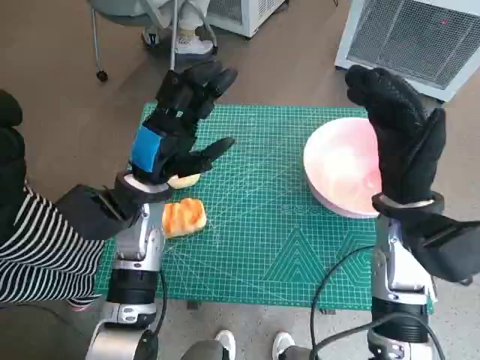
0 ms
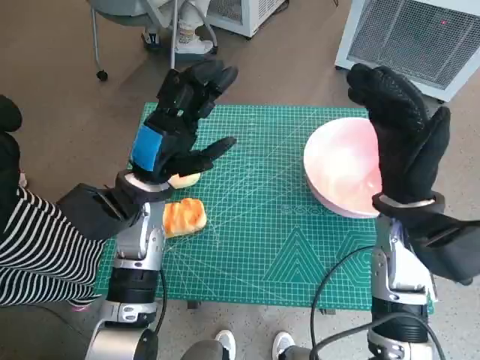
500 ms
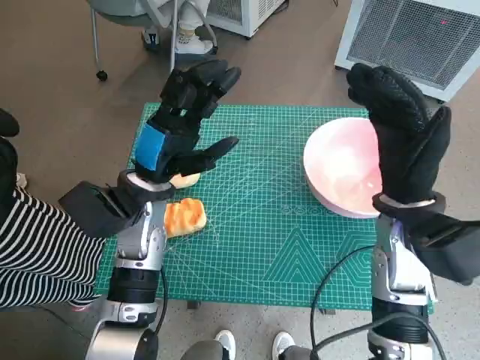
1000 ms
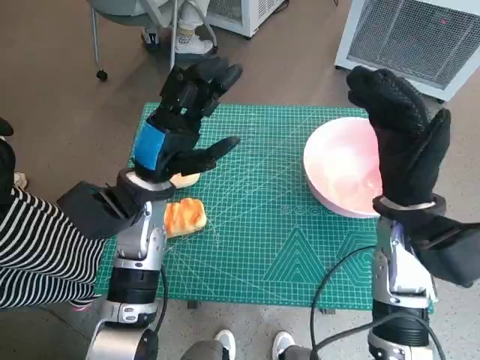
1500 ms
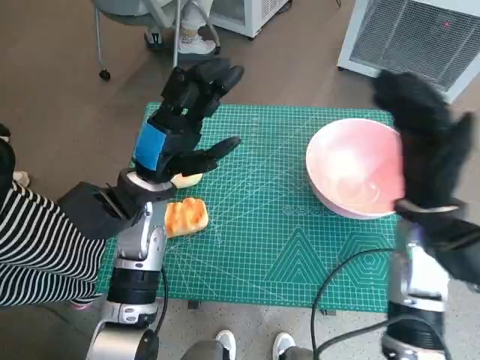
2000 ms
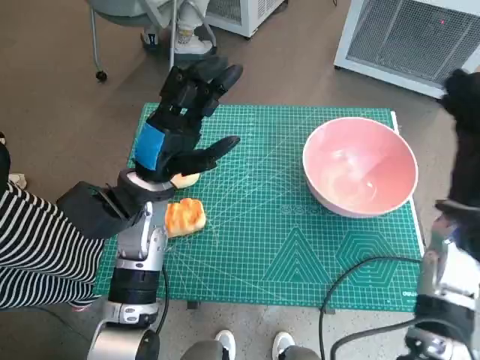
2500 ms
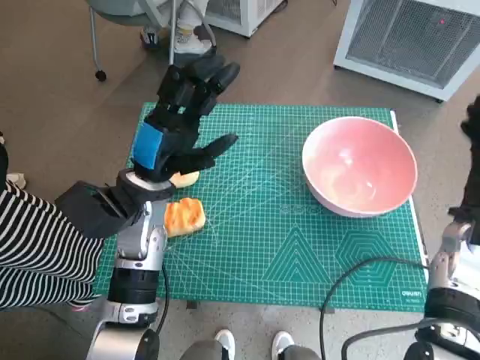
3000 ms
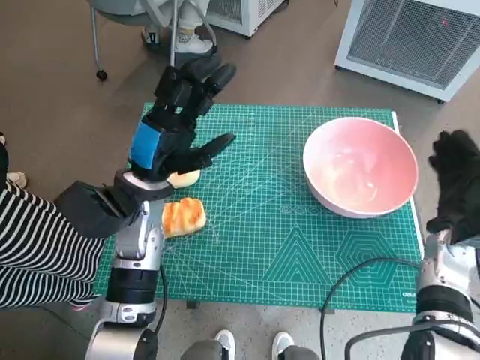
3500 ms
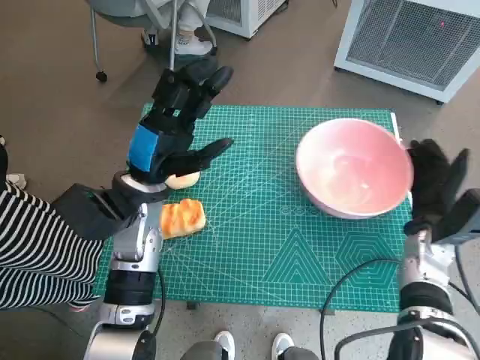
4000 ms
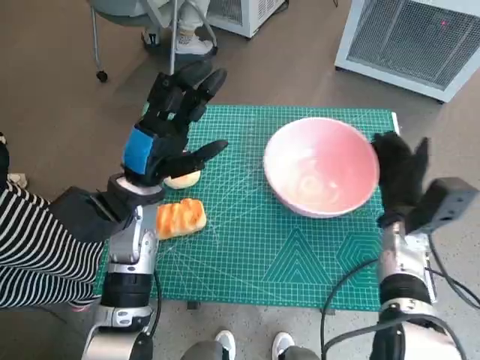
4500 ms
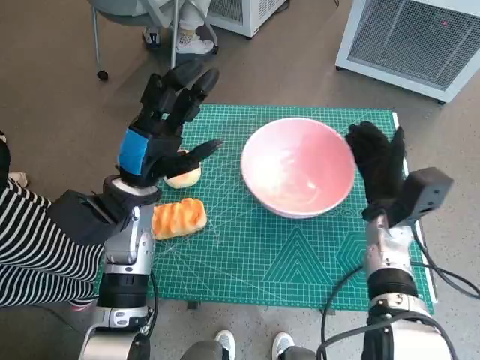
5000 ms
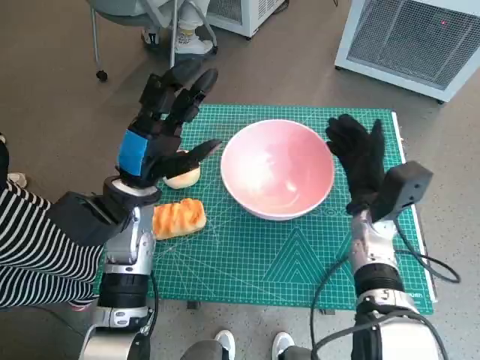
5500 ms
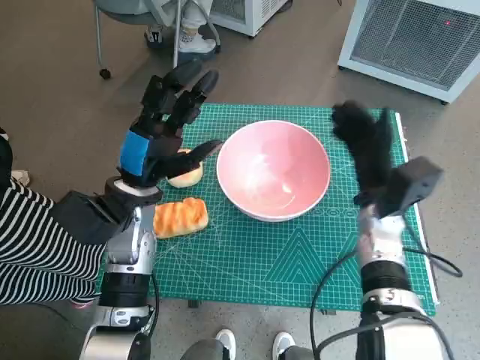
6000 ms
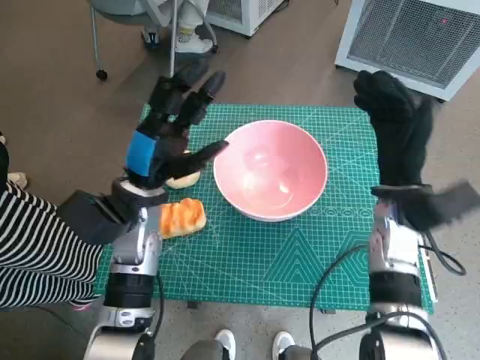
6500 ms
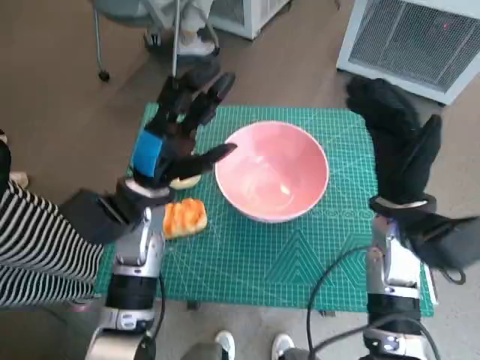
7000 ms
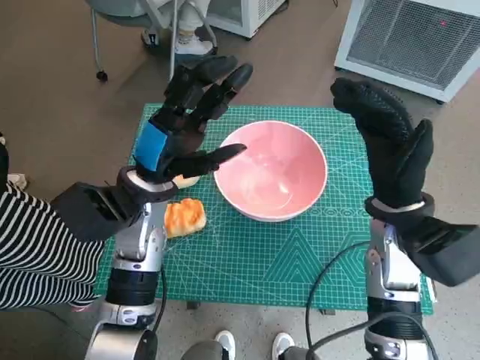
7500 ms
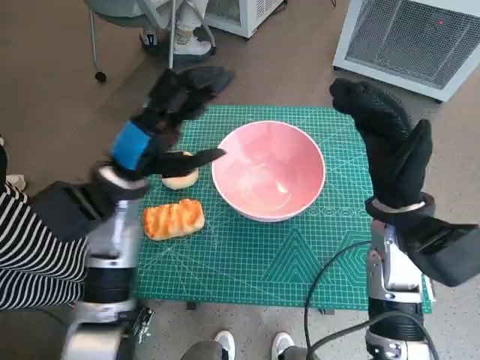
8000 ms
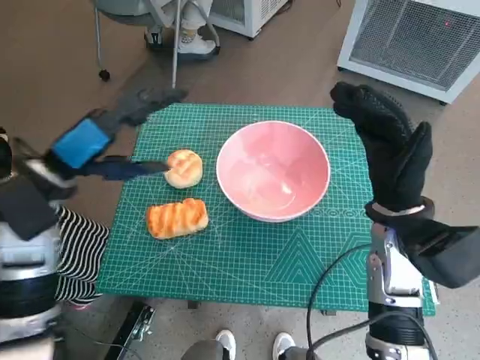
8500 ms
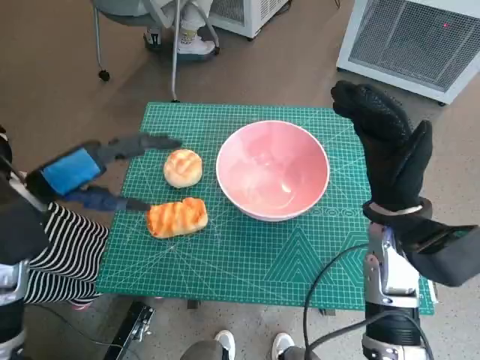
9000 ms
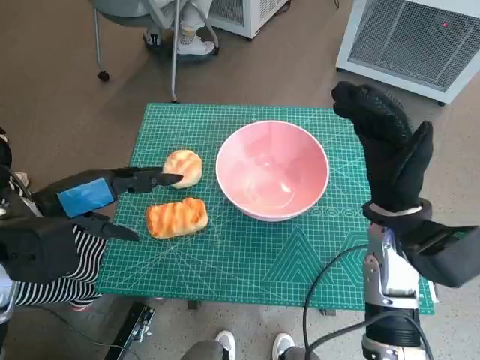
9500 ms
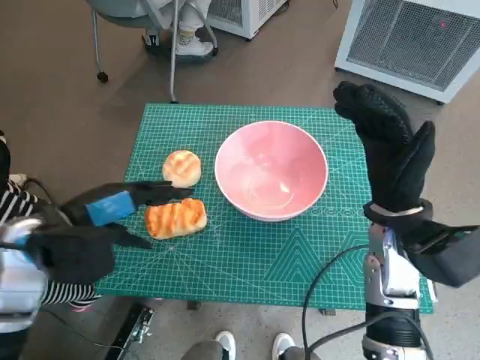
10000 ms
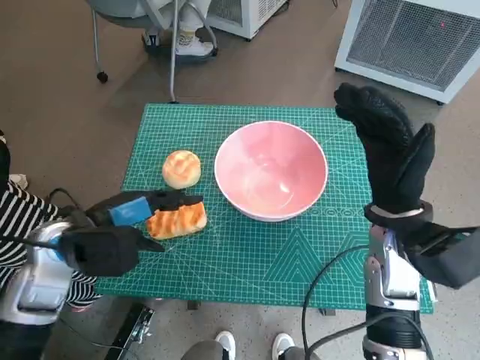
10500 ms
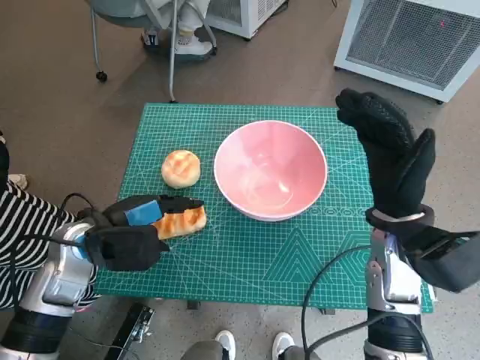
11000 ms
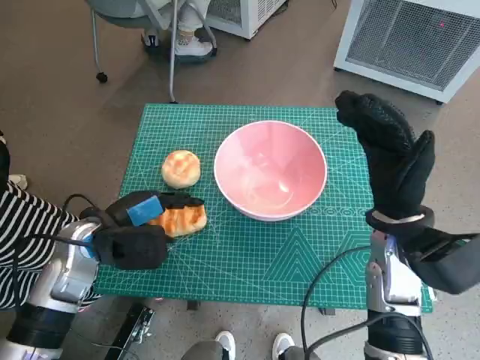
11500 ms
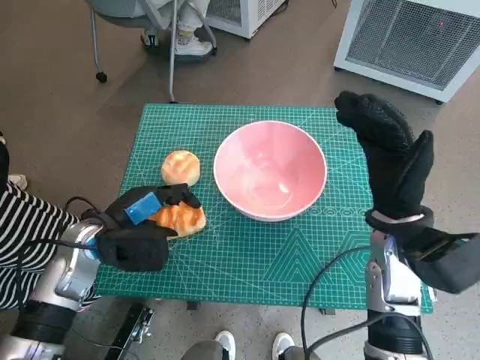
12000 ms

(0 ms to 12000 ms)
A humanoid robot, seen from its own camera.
Task of the whole recording: Push the bowl into the center of the table and put the bread into the bowl.
Step, 0 ms - 5500 ms: Move the pink bowl to the center of table with right hand.
2000 ms - 4000 ms: The right hand is displaced downward and to the right by some 10 cm.
4000 ms - 6000 ms: The right hand moves to the left, roughly 10 cm.
6000 ms - 8000 ms: The right hand travels upward by some 5 cm.
8000 ms - 10000 ms: The left hand moves to the left and backward, about 10 cm.
10000 ms - 12000 ms: The left hand goes roughly 10 cm downward.

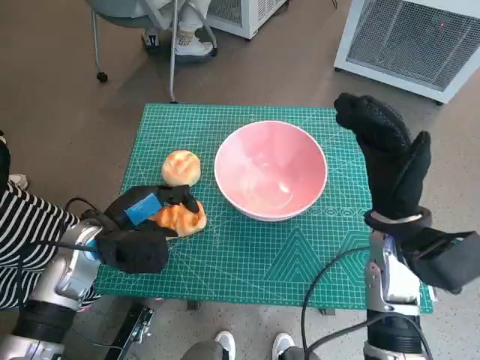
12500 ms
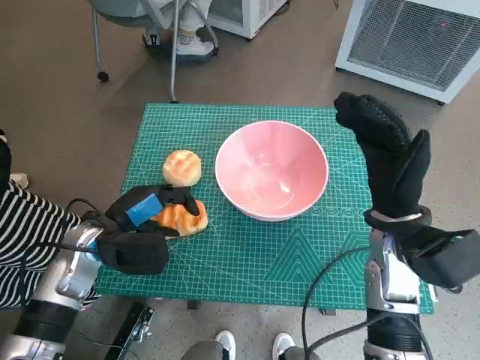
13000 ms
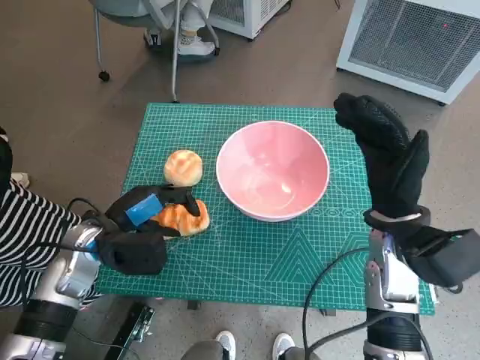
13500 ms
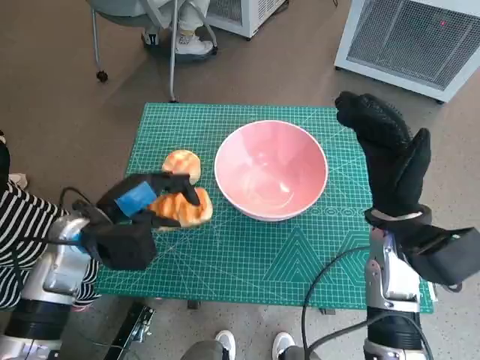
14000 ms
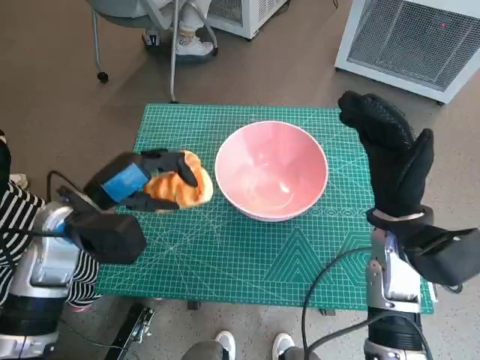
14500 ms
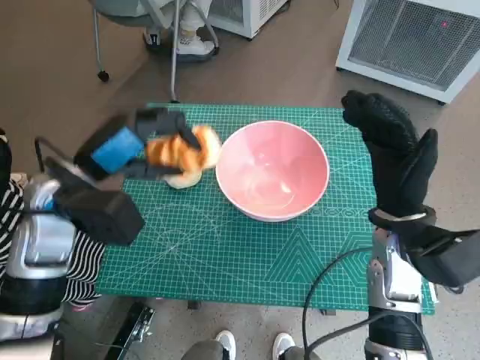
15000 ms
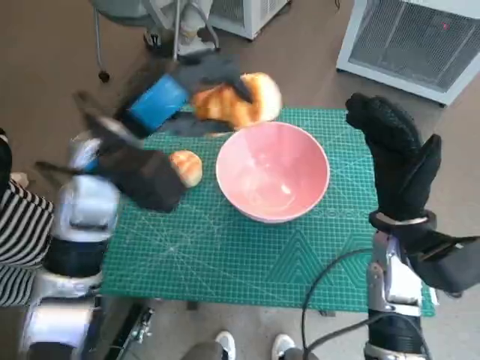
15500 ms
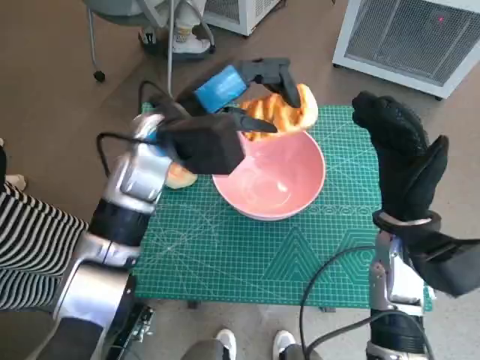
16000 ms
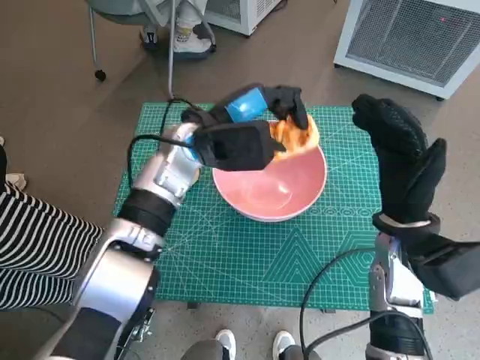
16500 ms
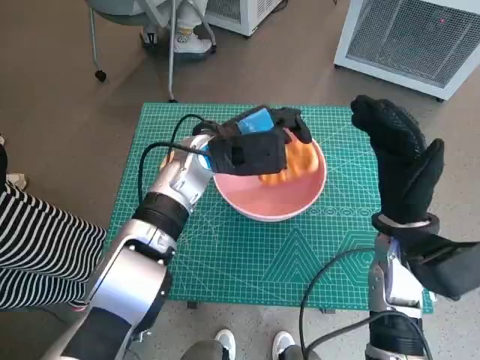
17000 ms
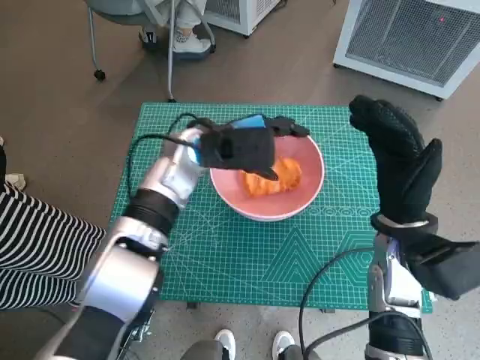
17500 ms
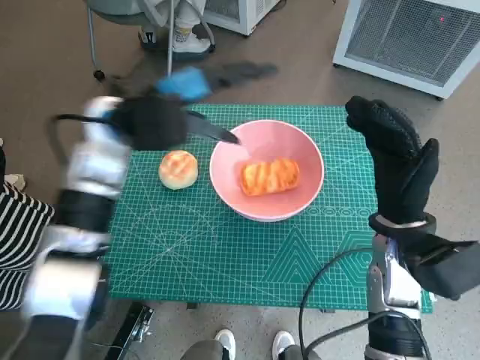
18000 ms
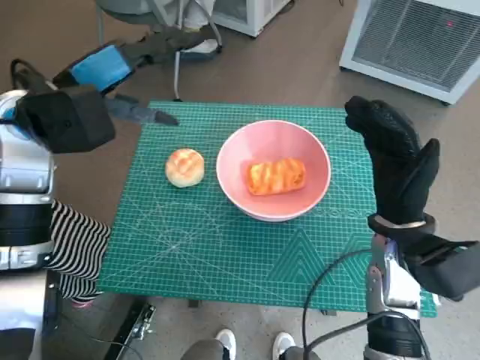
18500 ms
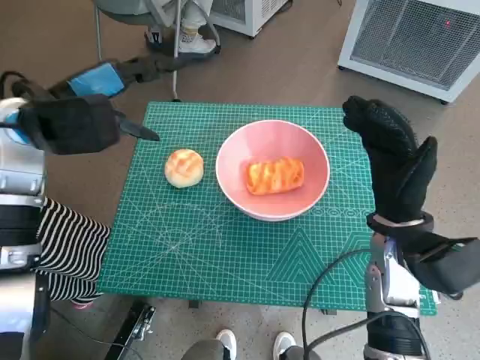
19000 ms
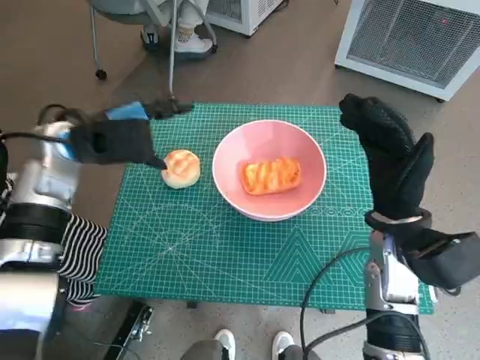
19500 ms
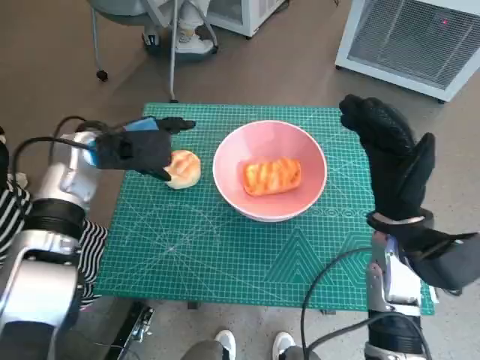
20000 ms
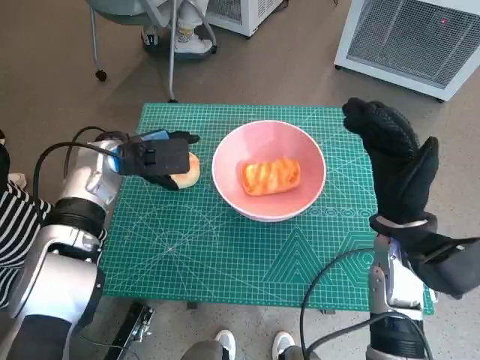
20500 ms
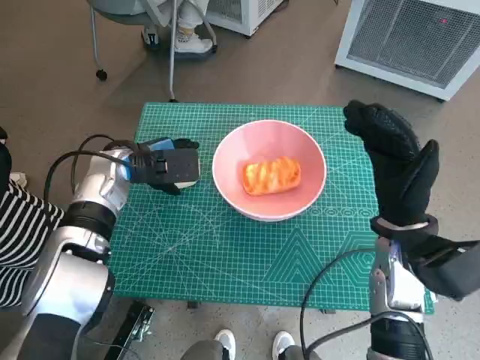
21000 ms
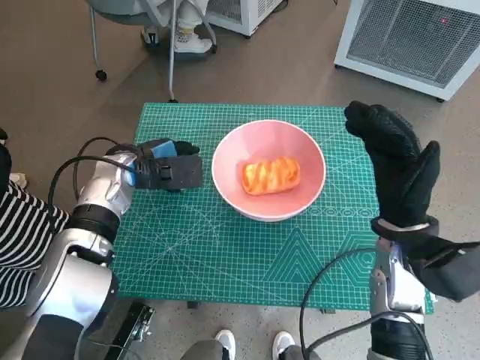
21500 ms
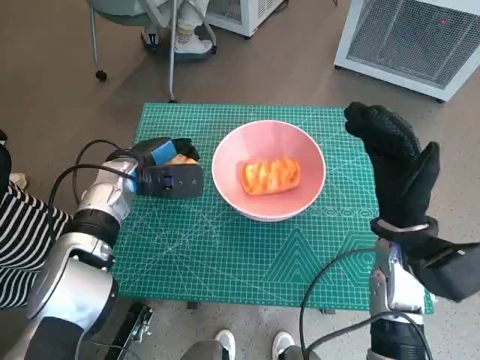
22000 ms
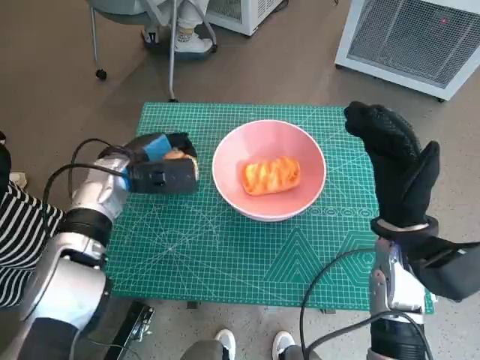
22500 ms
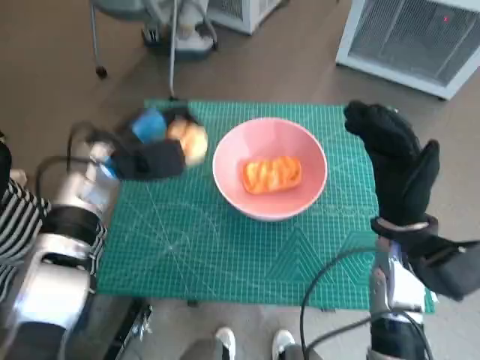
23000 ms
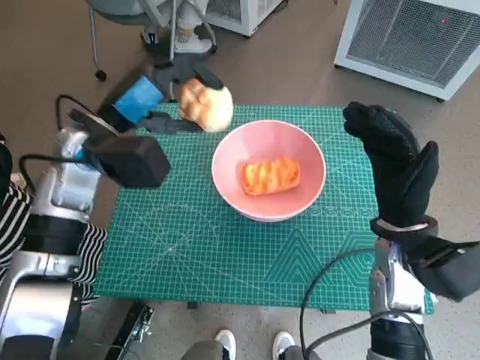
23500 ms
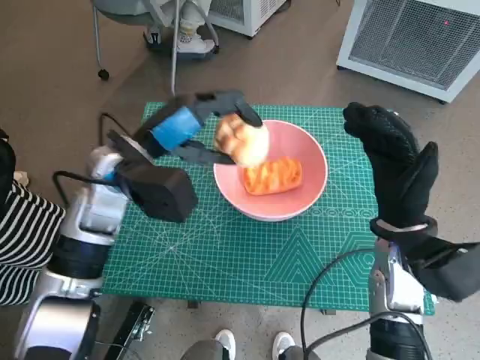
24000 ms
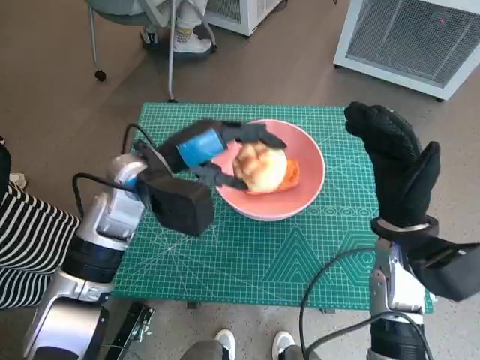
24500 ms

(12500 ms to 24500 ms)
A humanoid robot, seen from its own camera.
Task of the whole recording: Push the bowl into the center of the table and put the bread into the bowl.
Step, 12500 ms - 17500 ms: Place the long bread in pink bowl with left hand.
Step, 18000 ms - 22000 ms: Grasp the round bread with left hand.
12500 ms - 14500 ms: The left hand travels upward by approximately 5 cm.
14500 ms - 16500 ms: The left hand moves to the right and forward, roughly 20 cm.
16500 ms - 18500 ms: The left hand travels to the left and upward by about 15 cm.
18500 ms - 20500 ms: The left hand heads downward, covering approximately 10 cm.
20500 ms - 22500 ms: The hands move only a little.
22500 ms - 24500 ms: The left hand moves upward and to the right, some 10 cm.

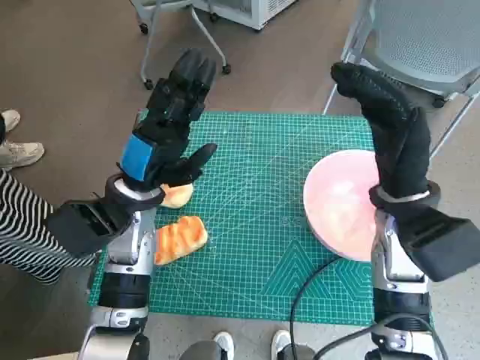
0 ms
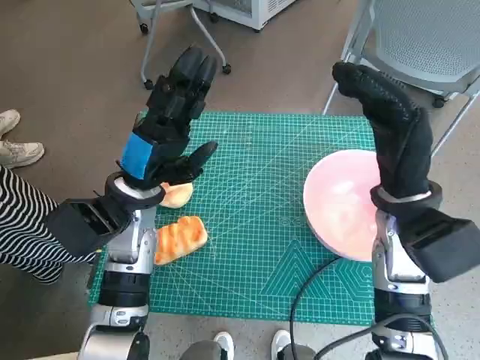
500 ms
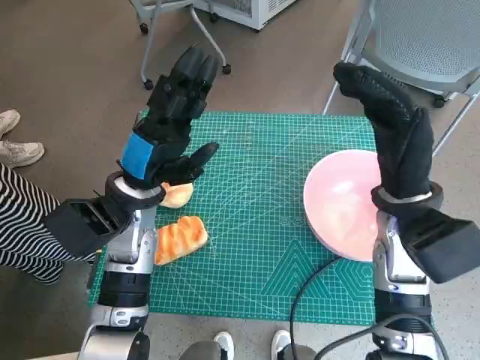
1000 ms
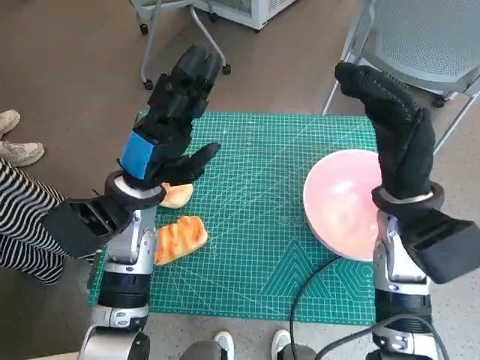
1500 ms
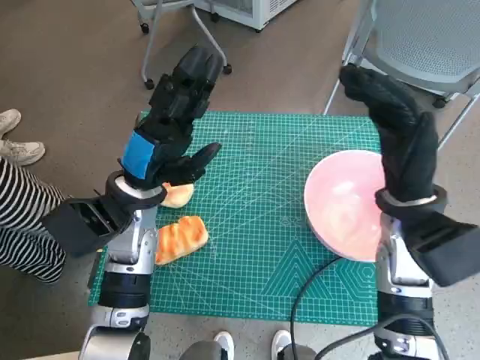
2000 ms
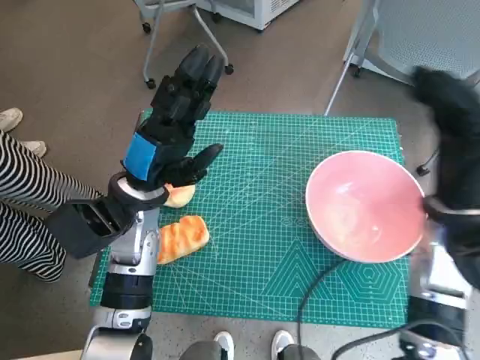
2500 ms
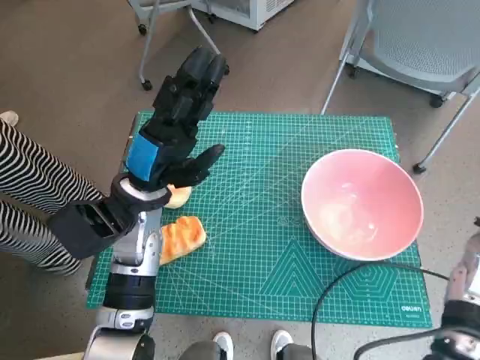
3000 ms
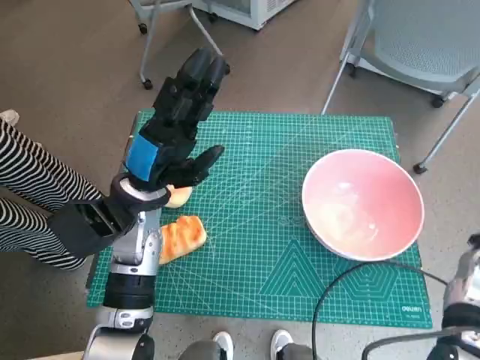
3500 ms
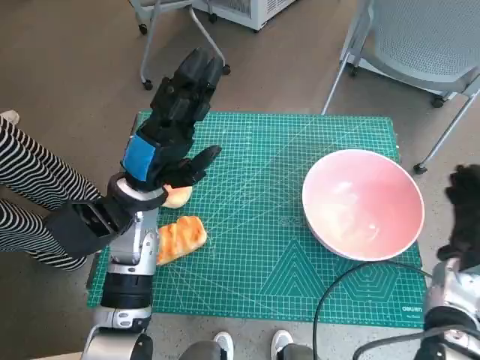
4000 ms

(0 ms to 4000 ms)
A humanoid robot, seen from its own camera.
Task of the whole recording: Push the bowl into the center of the table and put the bread into the bowl.
2000 ms - 4000 ms: The right hand shifts approximately 20 cm downward and to the right.
